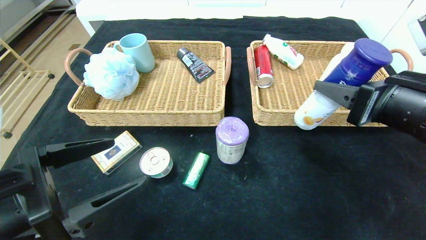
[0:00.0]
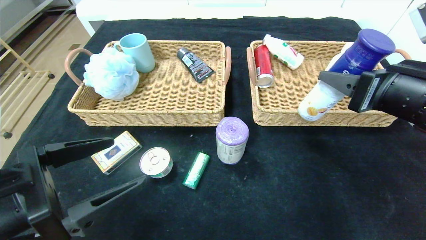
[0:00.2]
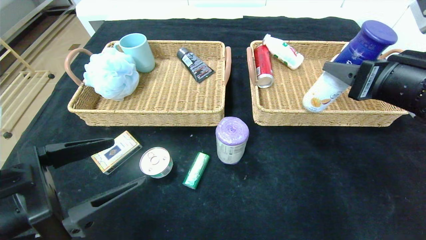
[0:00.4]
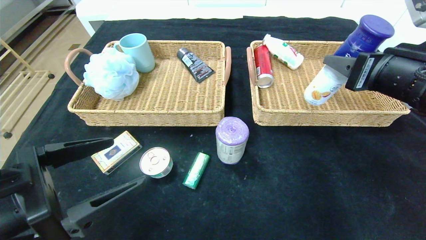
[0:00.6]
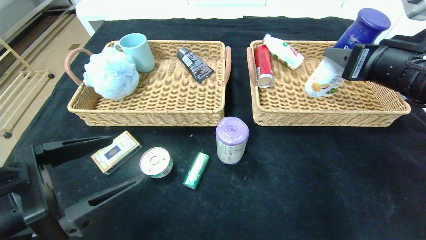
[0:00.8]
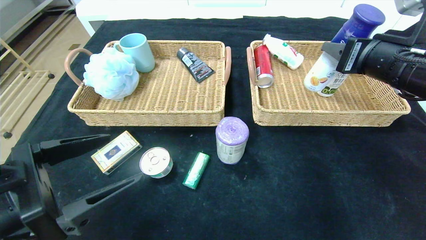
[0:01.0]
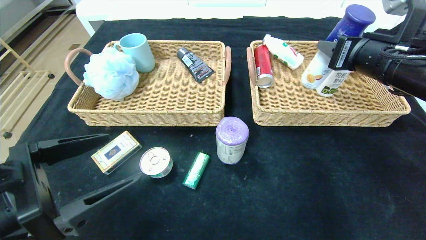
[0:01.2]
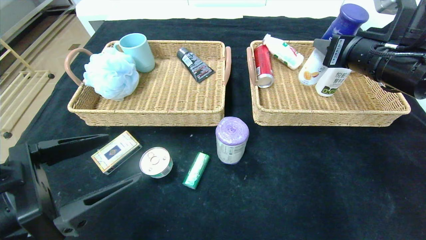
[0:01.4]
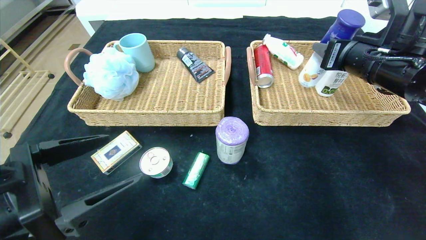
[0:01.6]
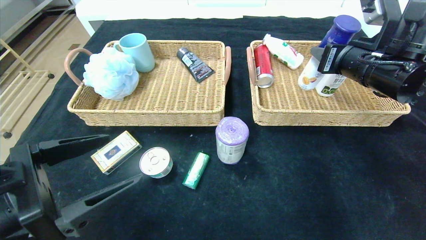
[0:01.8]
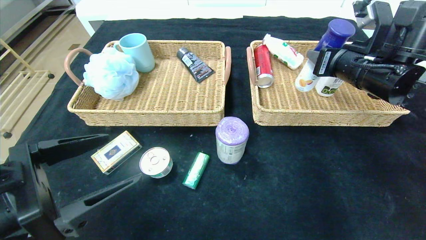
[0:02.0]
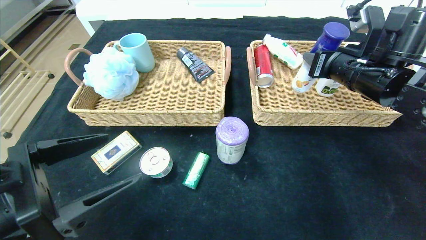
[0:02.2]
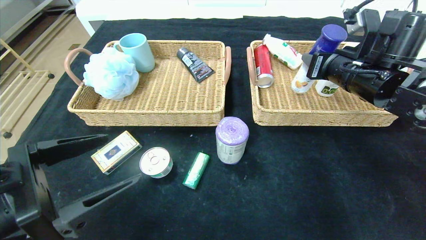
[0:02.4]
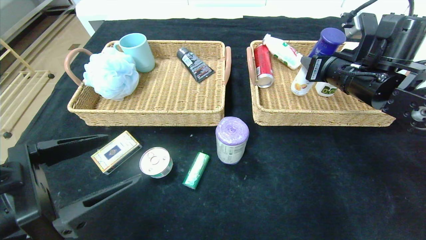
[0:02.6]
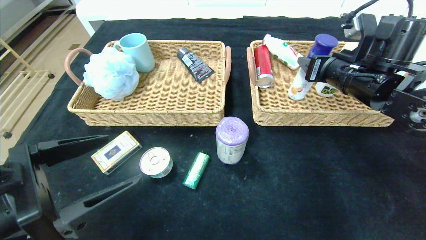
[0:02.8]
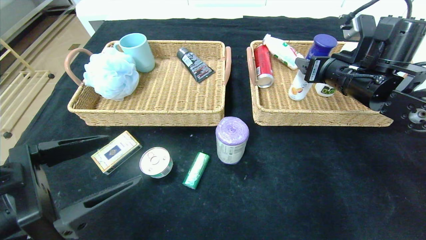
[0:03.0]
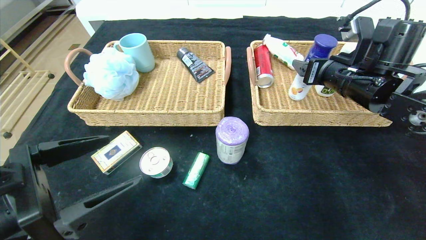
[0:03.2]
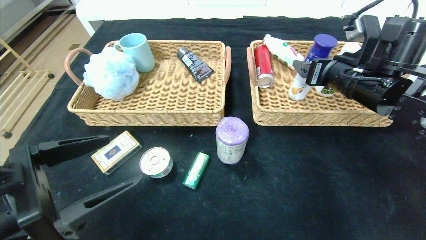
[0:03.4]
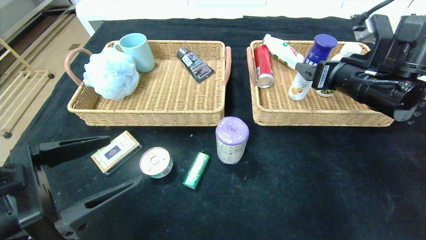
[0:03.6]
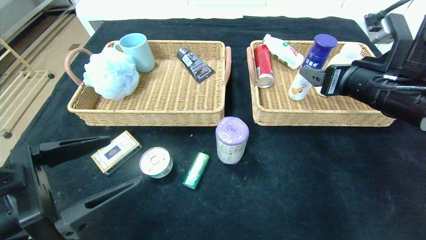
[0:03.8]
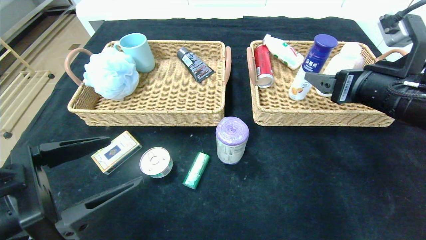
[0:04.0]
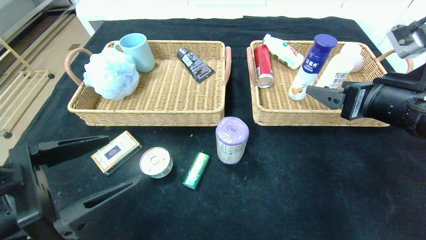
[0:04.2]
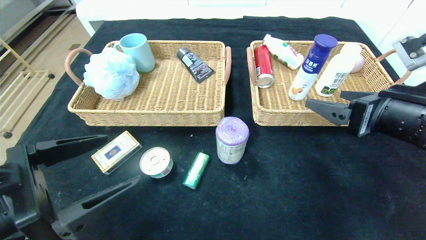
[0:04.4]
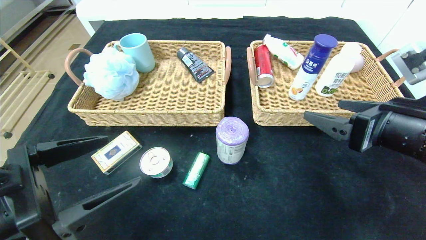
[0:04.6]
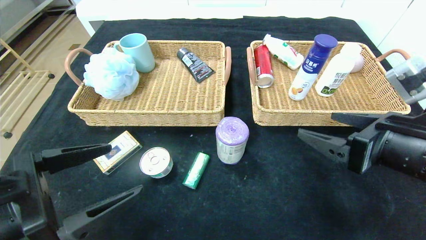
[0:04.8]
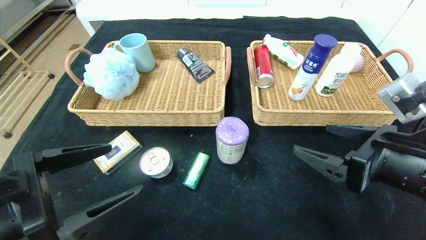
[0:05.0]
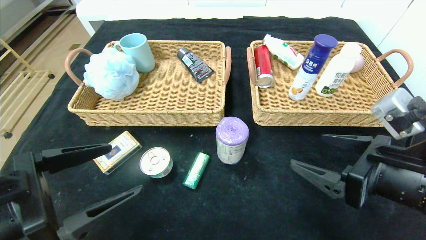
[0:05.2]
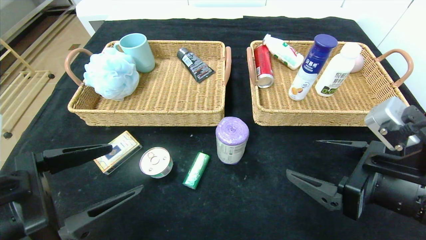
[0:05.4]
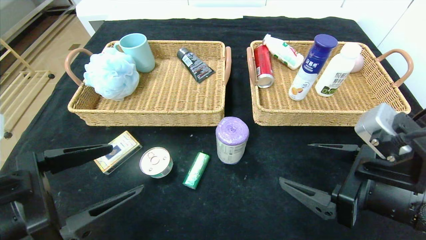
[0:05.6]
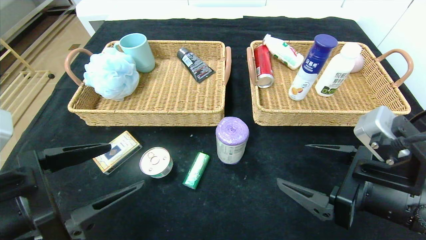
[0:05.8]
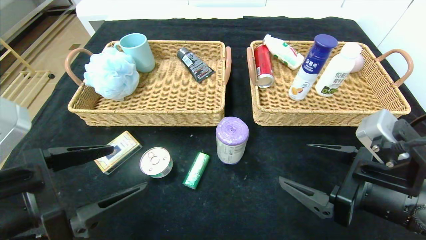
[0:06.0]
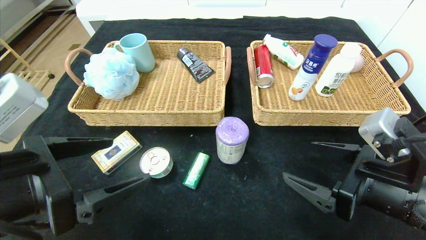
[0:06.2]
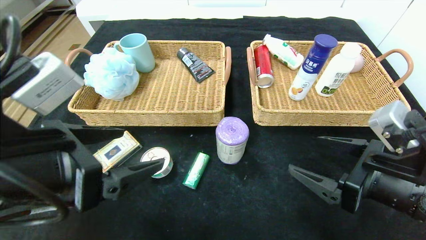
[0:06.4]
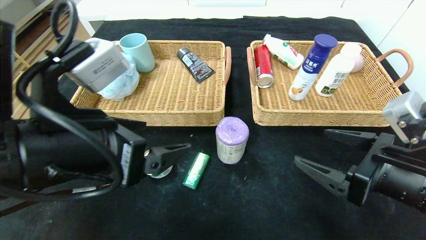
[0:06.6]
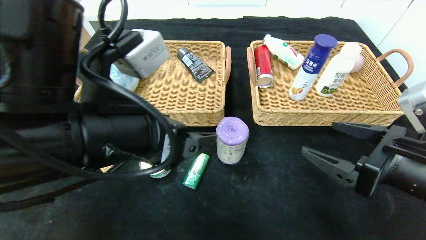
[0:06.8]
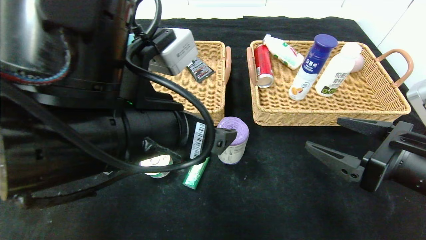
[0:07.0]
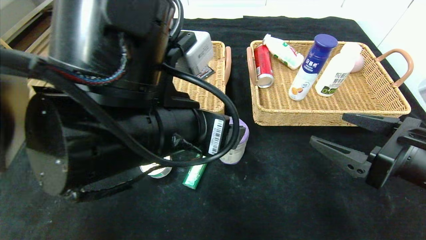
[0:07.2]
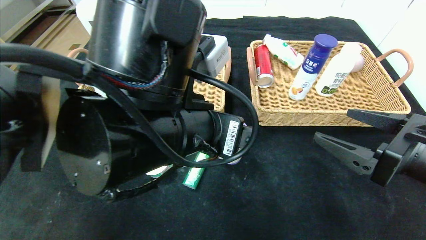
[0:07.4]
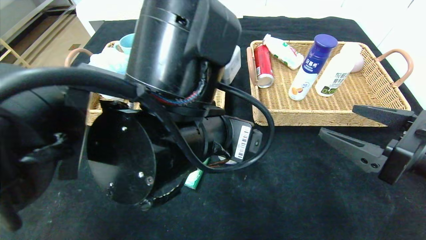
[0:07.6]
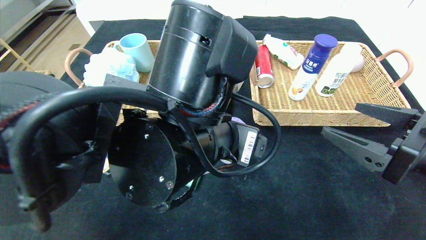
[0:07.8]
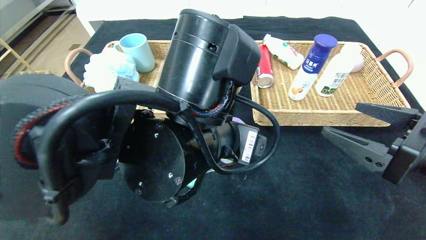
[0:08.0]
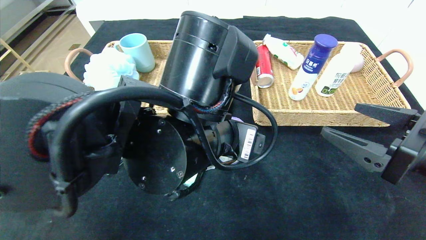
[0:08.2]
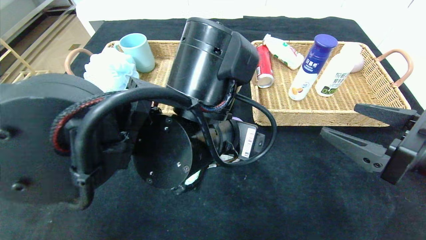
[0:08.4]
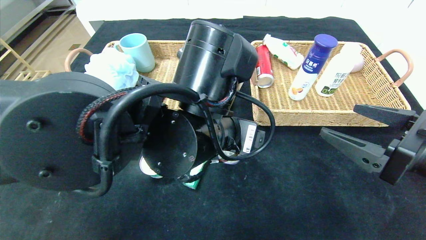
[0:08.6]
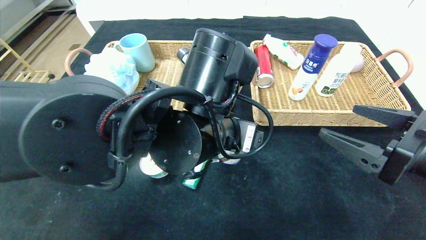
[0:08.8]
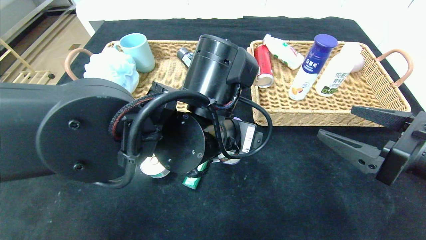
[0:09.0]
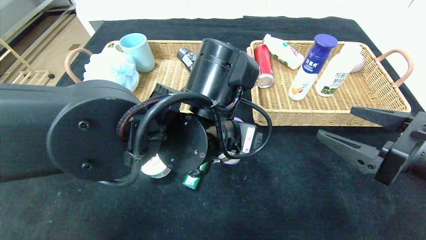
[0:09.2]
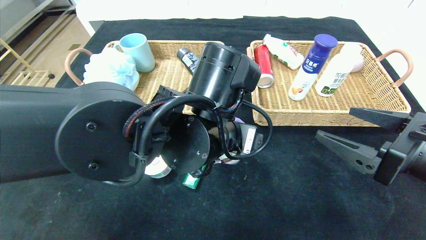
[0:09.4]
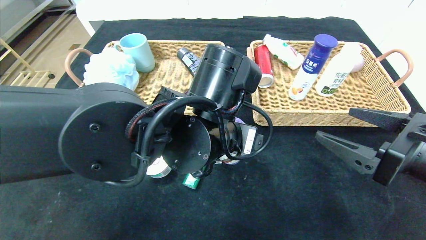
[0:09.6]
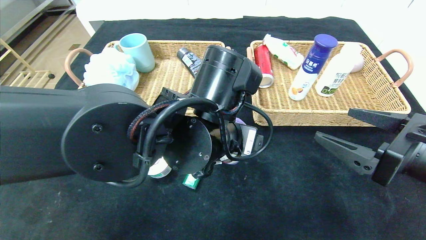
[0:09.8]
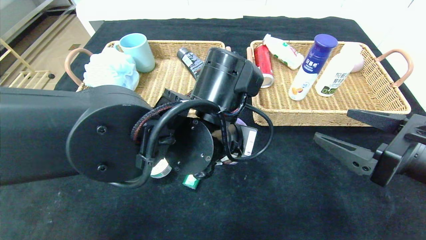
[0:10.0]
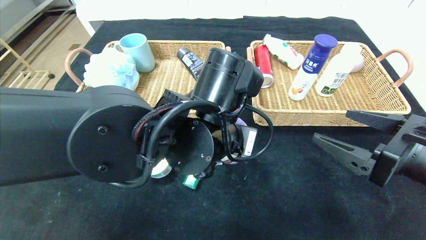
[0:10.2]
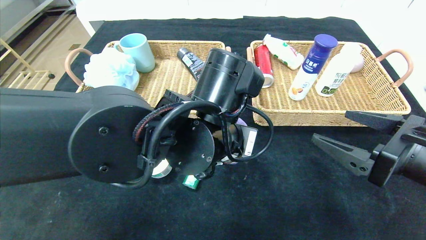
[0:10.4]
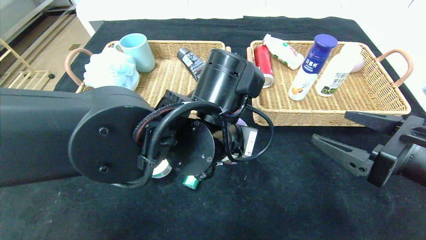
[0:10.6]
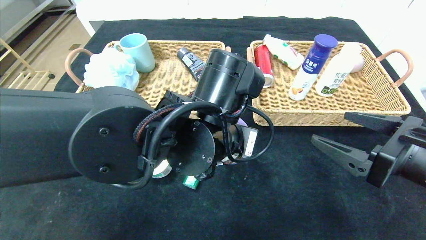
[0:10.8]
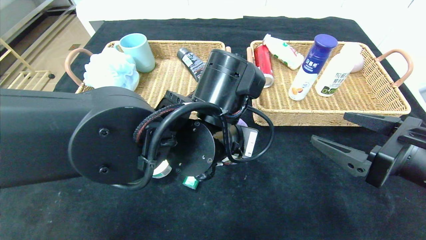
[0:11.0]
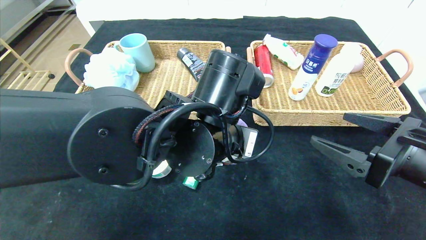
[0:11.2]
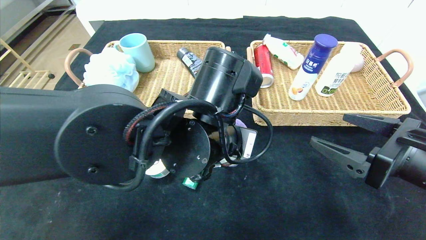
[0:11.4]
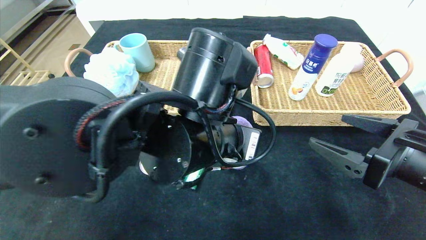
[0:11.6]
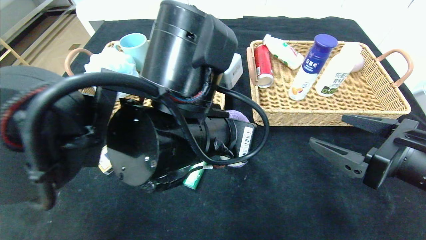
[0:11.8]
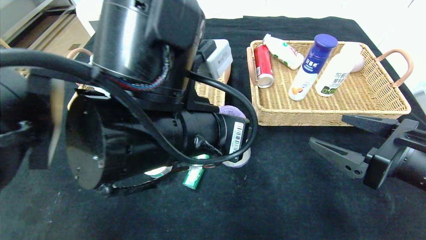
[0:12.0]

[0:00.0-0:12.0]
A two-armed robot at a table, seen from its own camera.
Step, 0:00.0 to 0:03.2: Grasp the yogurt and put it in the right basket.
0:00.0 to 0:01.6: The right gripper is displaced forward by roughly 10 cm.
0:01.6 to 0:03.0: The right gripper opens.
0:03.0 to 0:04.4: The right gripper is displaced backward by about 15 cm, and opens.
0:04.4 to 0:06.0: The right gripper moves downward, about 5 cm.
0:06.0 to 0:07.6: The left gripper moves to the right, about 20 cm. The right gripper ends up about 5 cm from where it was.
0:07.6 to 0:09.0: The left gripper ends up about 5 cm from where it was.
0:09.0 to 0:10.4: The left gripper closes up.
0:10.4 to 0:12.0: The left gripper goes approximately 5 cm backward.

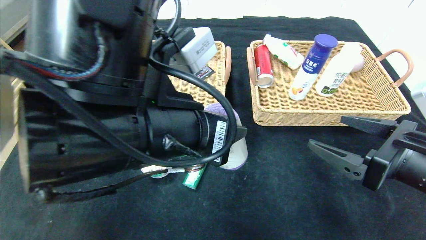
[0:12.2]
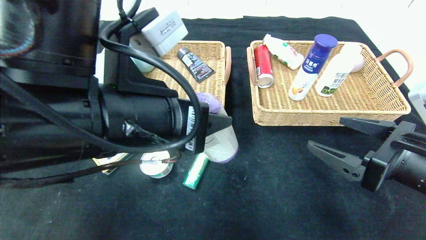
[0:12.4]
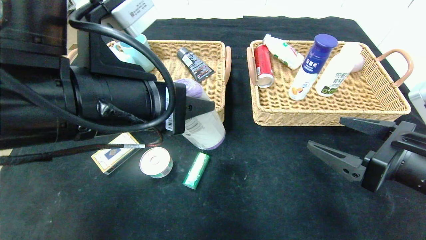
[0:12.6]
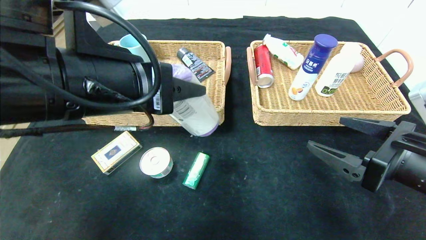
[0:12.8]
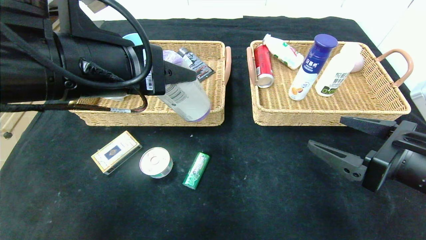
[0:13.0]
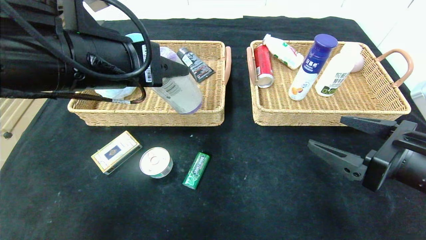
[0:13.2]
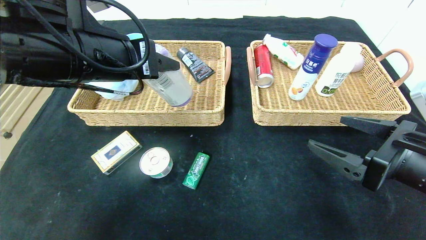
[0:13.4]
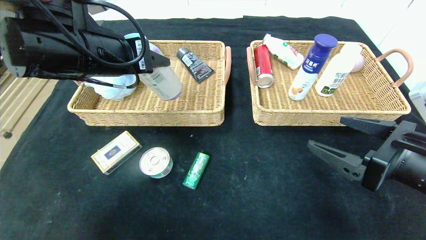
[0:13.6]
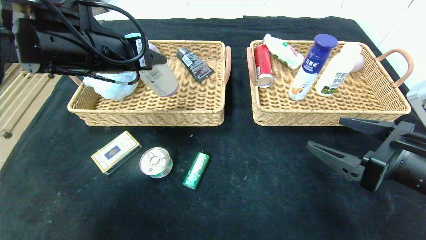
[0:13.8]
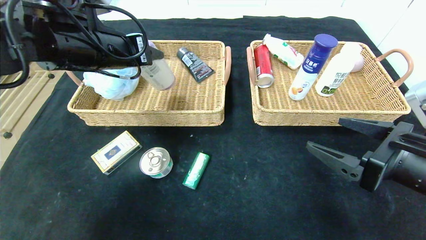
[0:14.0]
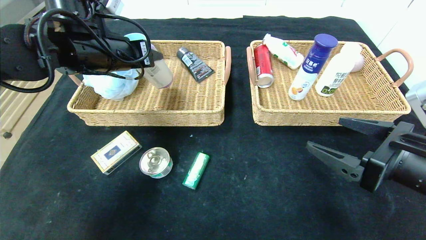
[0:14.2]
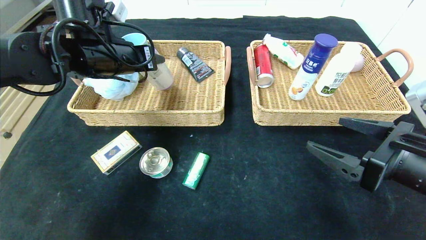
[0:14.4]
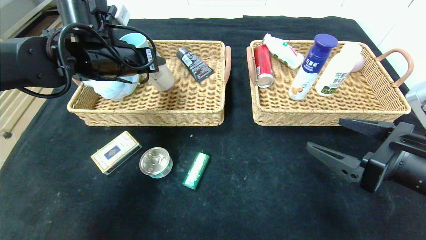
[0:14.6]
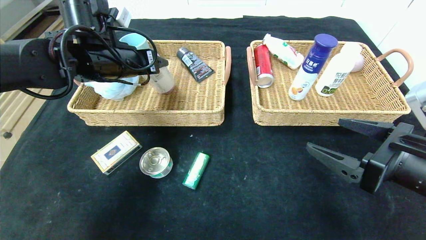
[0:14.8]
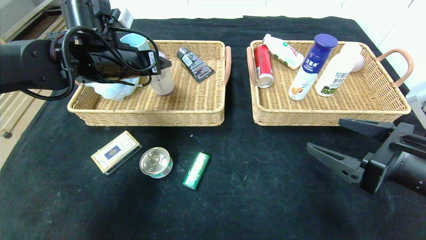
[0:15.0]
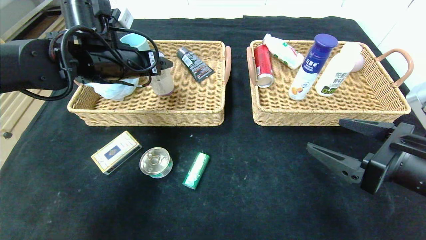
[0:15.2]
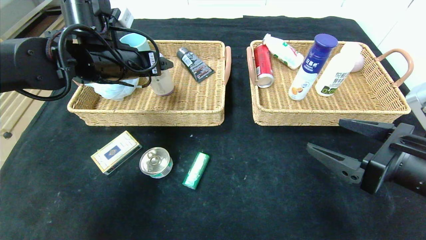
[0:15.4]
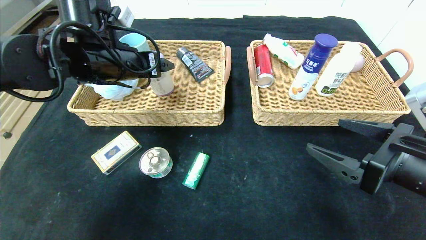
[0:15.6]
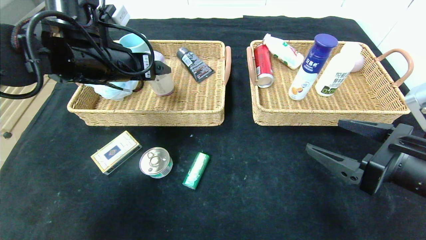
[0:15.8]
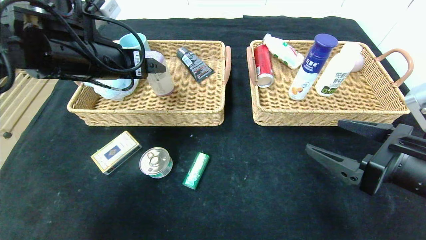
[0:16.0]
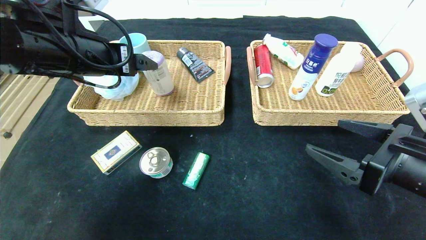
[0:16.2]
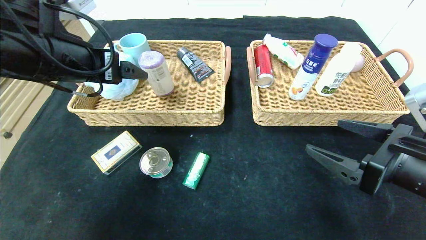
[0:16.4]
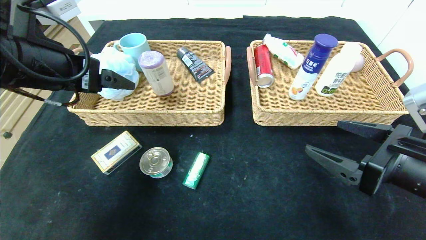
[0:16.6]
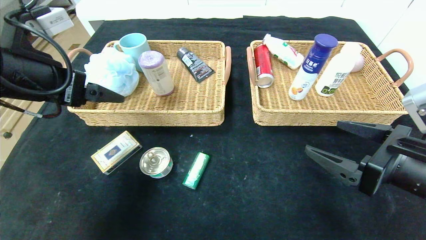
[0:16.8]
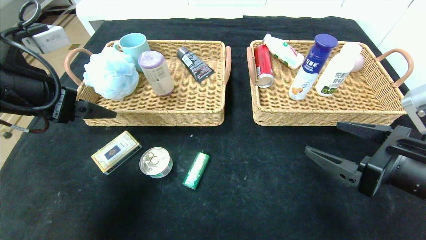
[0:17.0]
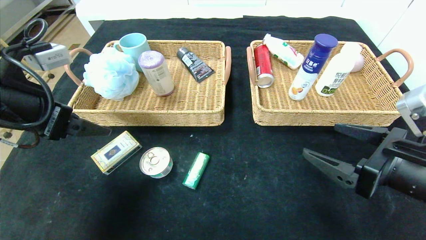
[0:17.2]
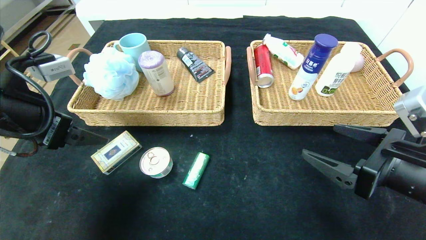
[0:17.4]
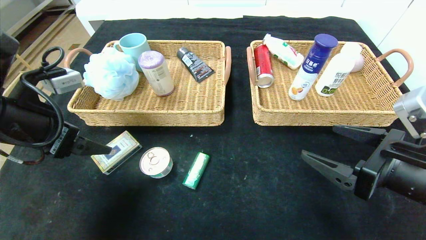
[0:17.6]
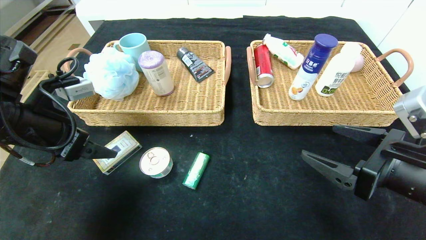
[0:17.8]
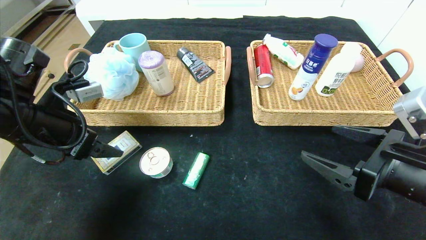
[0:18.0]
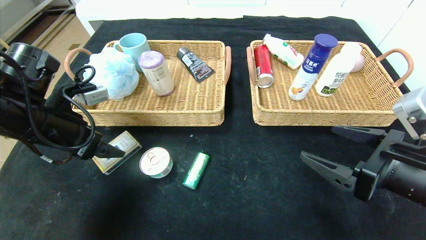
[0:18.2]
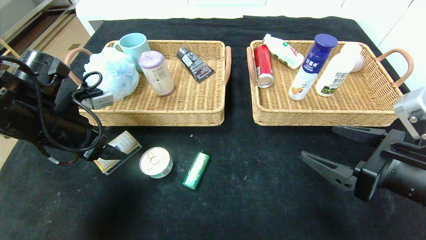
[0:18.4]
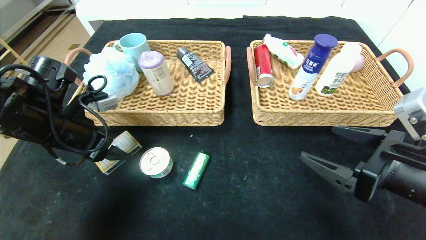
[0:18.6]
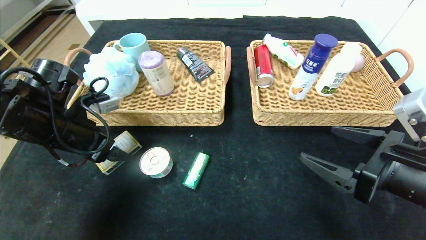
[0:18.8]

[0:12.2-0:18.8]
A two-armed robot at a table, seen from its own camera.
Step, 0:12.2 to 0:15.6: Grasp the purple garbage bag and put it in the left basket.
0:12.2 to 0:13.8: The left gripper goes some 15 cm forward and to the left.
0:13.8 to 0:15.4: The left gripper moves forward, about 5 cm, and opens up.
0:15.4 to 0:17.2: The left gripper is displaced backward and to the left by about 15 cm.
0:17.2 to 0:18.8: The left gripper is displaced downward and forward by about 10 cm.
